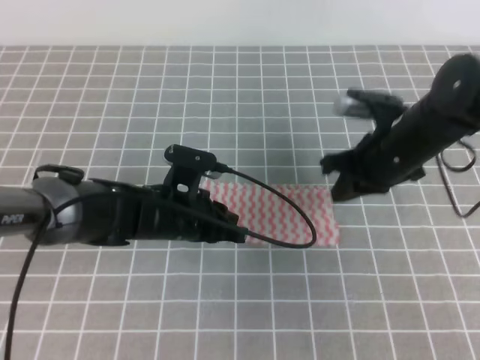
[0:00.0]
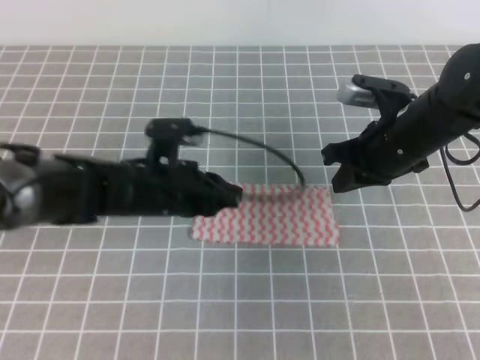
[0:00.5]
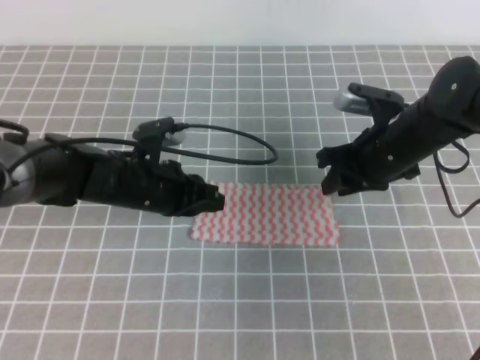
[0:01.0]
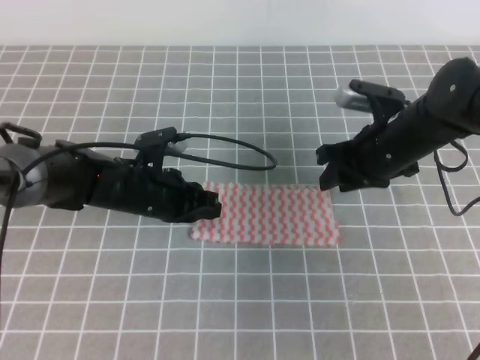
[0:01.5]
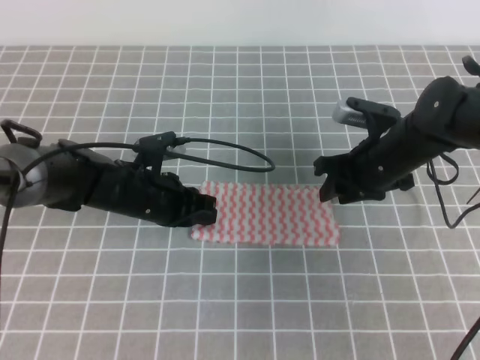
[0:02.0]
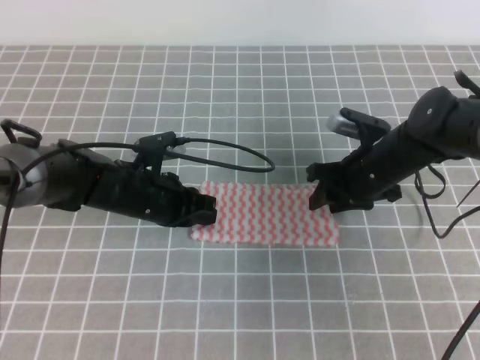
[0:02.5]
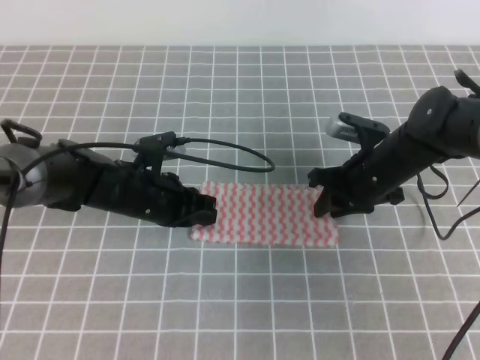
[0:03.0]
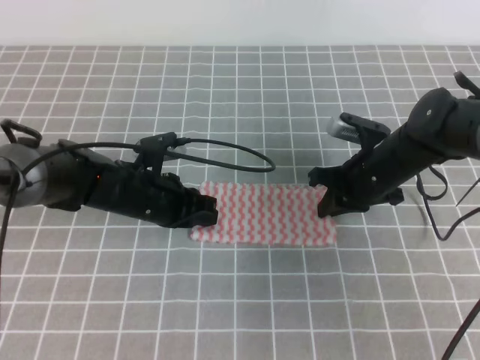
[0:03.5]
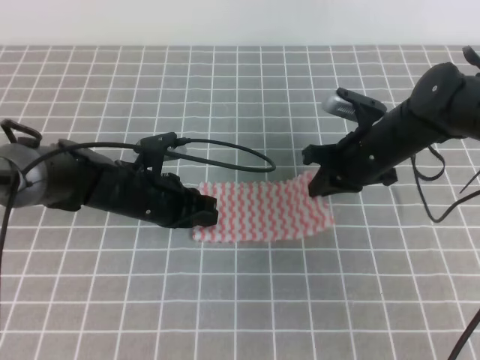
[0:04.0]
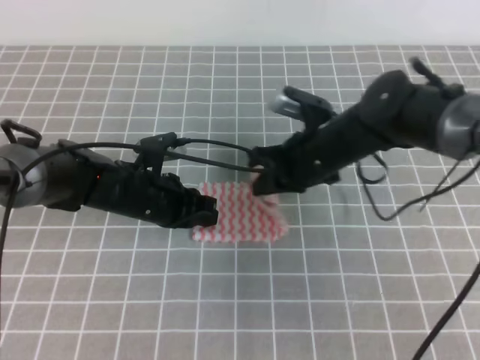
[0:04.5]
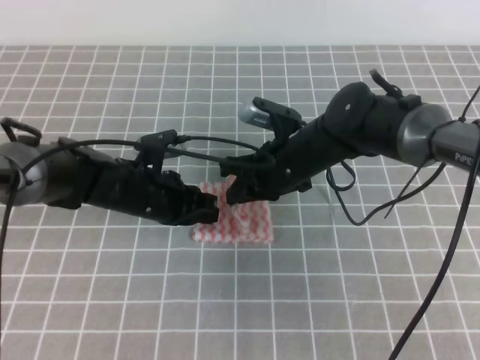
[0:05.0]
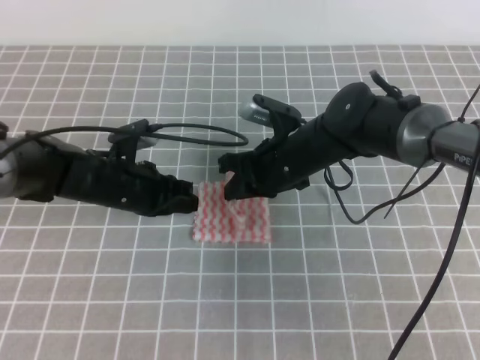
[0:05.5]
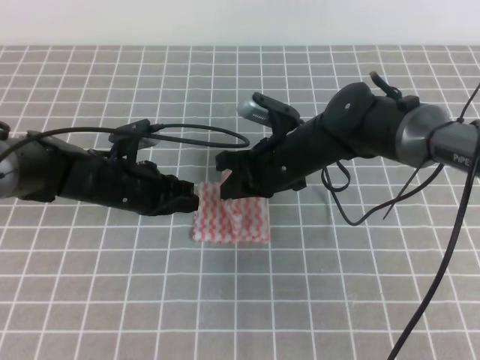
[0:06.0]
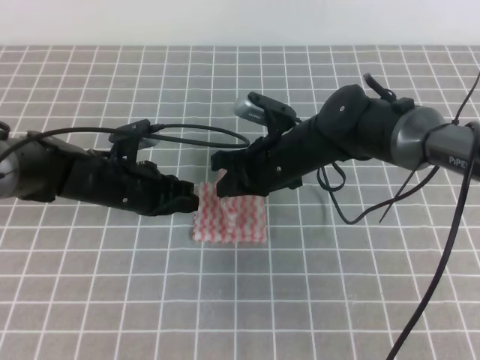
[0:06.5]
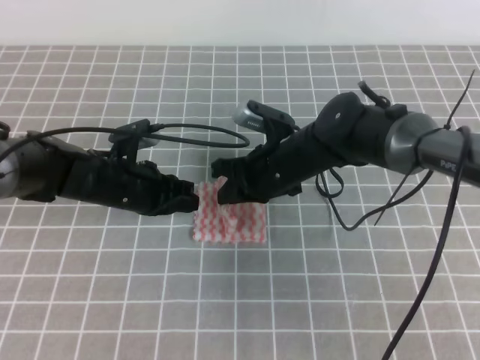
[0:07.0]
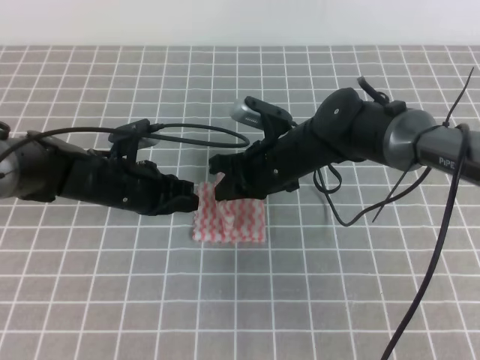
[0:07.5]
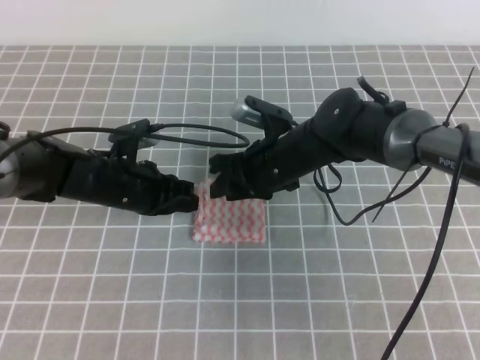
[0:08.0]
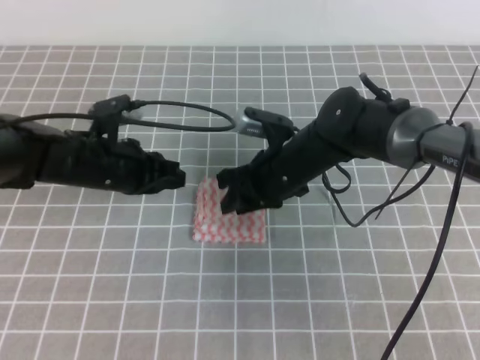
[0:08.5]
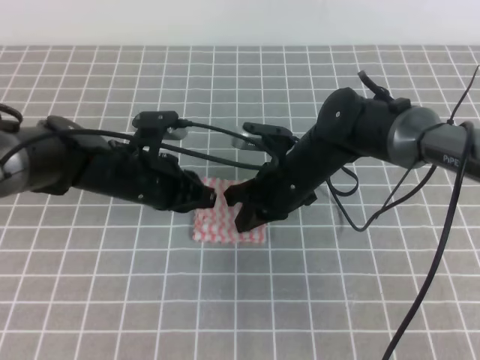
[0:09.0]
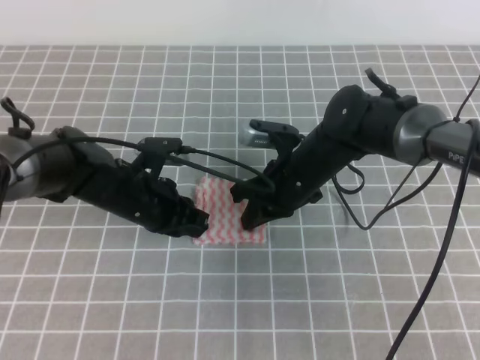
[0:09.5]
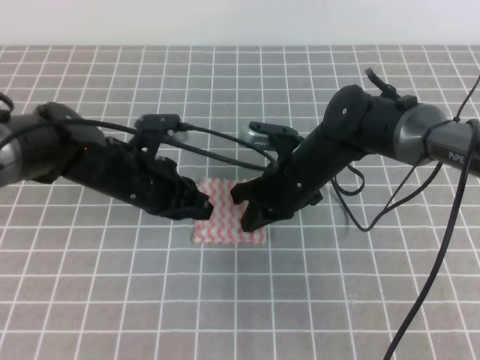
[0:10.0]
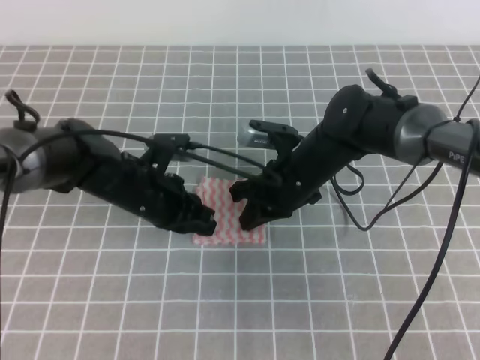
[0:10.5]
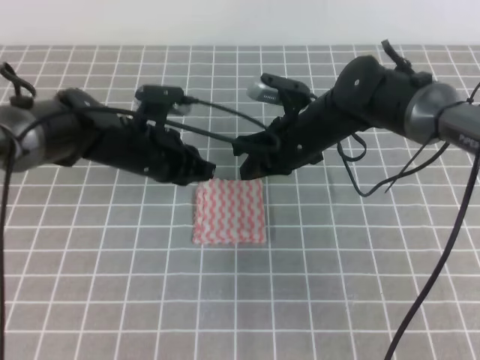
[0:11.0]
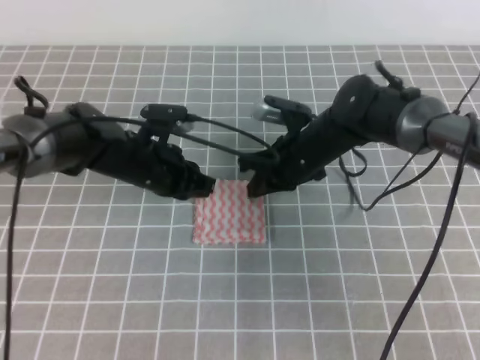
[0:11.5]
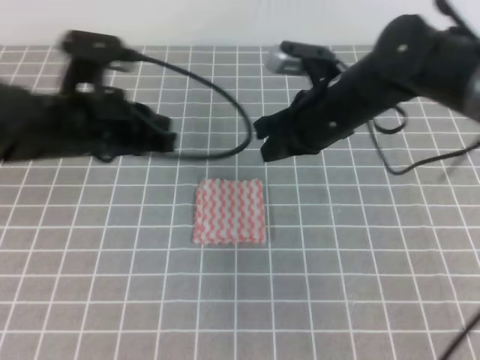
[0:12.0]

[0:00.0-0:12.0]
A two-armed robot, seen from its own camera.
0:00.0 to 0:02.0: The right gripper opens; the left gripper ends up roughly 5 cm from where it was.
0:02.0 to 0:04.0: The right gripper closes up.
0:04.0 to 0:06.0: The right gripper heads to the left, covering roughly 10 cm.
0:06.0 to 0:08.0: The right gripper opens.
0:08.0 to 0:10.0: The right gripper closes up.
0:10.0 to 0:12.0: The two grippers go about 10 cm upward.

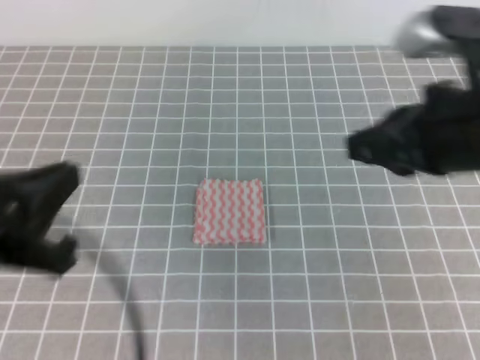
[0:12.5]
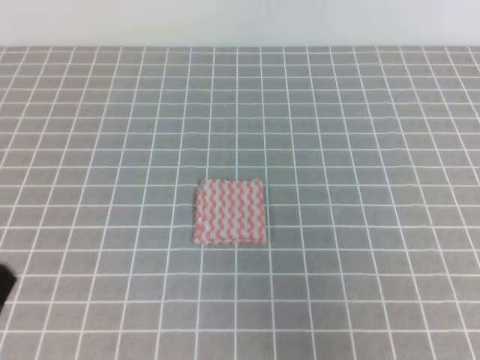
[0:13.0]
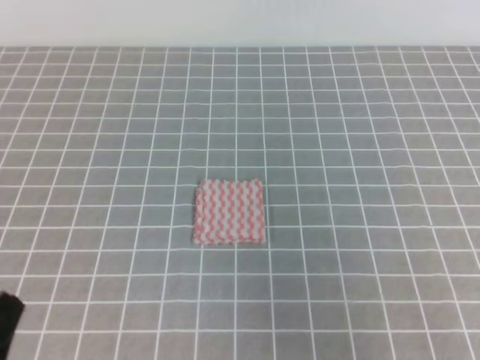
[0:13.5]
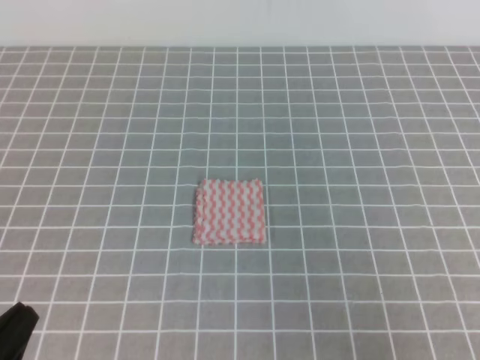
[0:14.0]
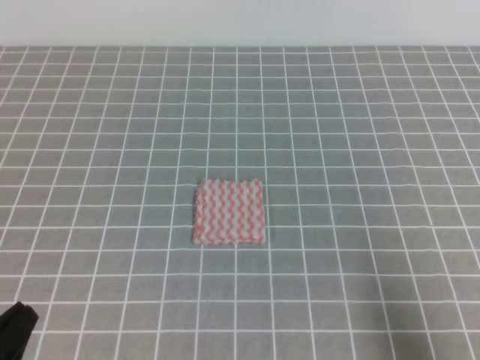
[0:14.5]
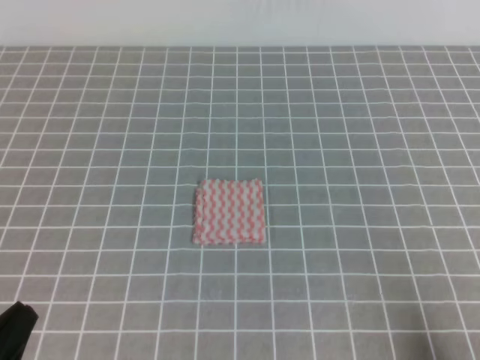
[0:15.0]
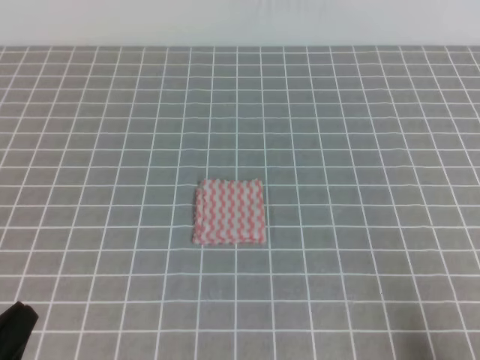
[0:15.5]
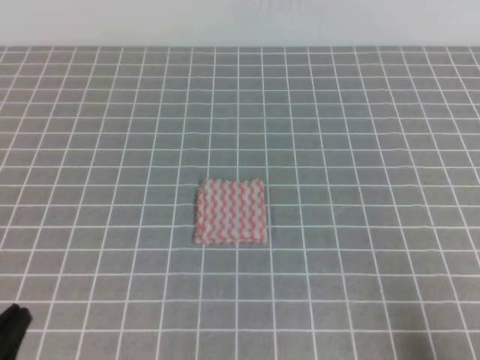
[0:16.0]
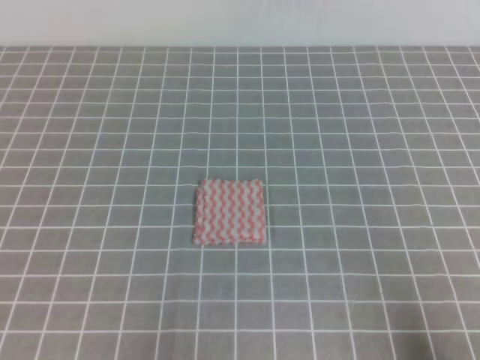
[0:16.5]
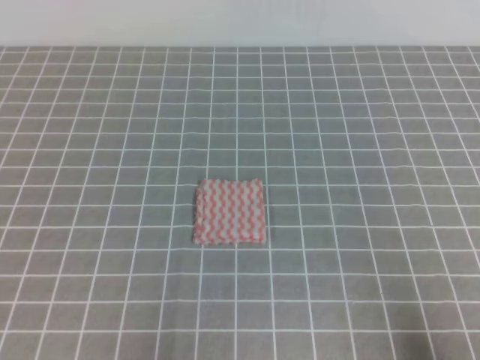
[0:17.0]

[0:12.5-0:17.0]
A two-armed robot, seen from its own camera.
Step, 0:12.5 to 0:17.0: Fold the towel.
0:12.5 to 0:14.5: The left gripper travels downward and backward by some 15 cm. Meanwhile the right gripper moves backward, downward and to the right, roughly 25 cm.
